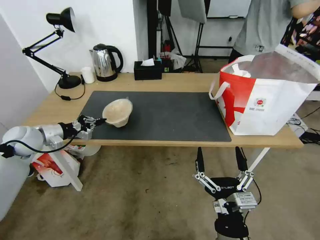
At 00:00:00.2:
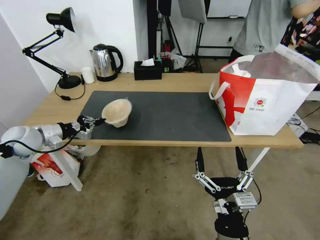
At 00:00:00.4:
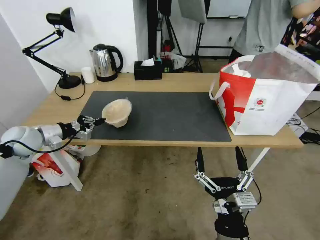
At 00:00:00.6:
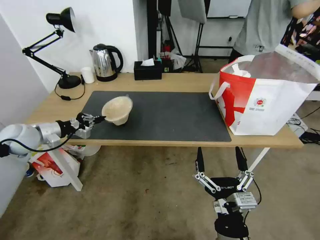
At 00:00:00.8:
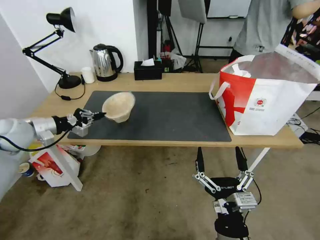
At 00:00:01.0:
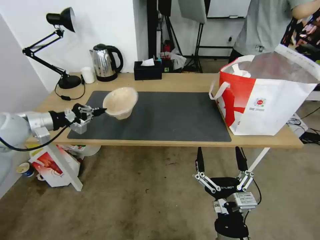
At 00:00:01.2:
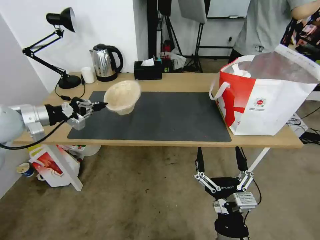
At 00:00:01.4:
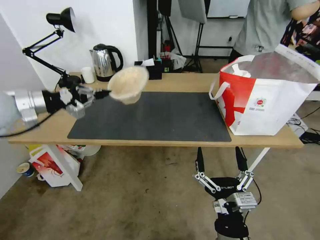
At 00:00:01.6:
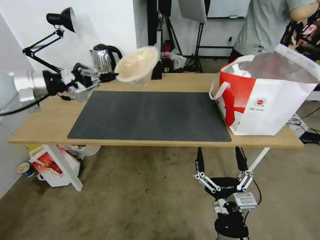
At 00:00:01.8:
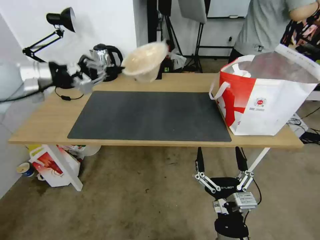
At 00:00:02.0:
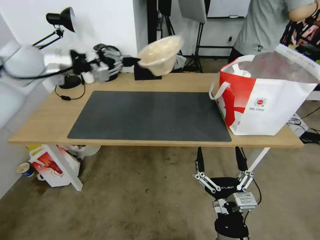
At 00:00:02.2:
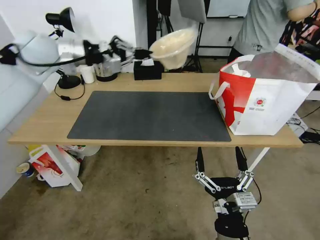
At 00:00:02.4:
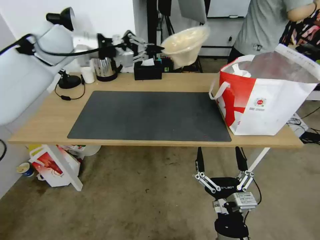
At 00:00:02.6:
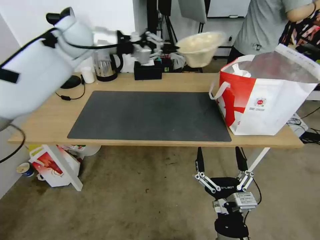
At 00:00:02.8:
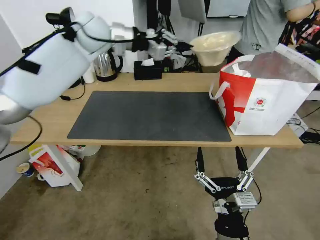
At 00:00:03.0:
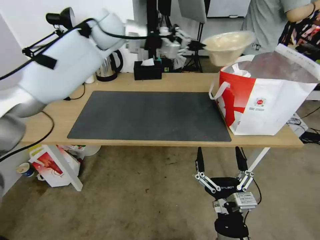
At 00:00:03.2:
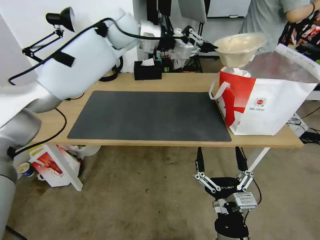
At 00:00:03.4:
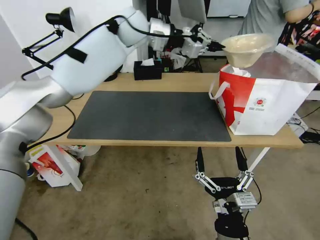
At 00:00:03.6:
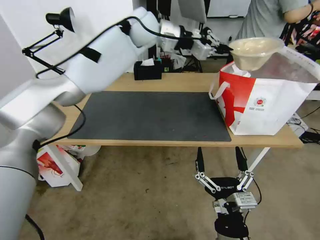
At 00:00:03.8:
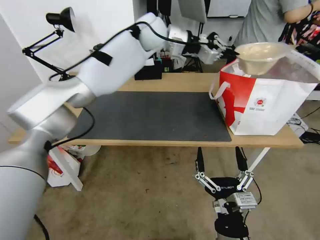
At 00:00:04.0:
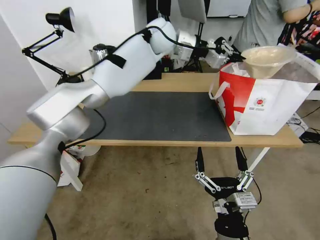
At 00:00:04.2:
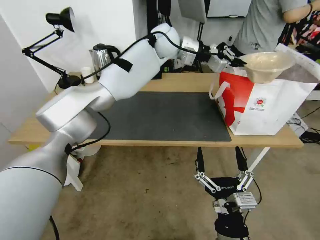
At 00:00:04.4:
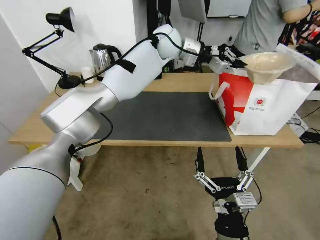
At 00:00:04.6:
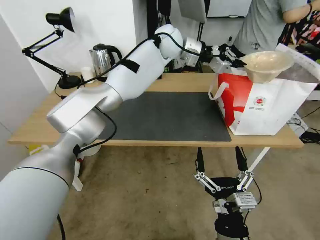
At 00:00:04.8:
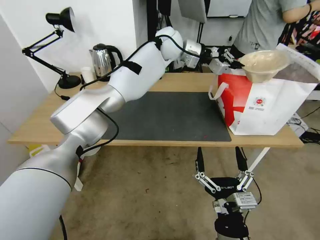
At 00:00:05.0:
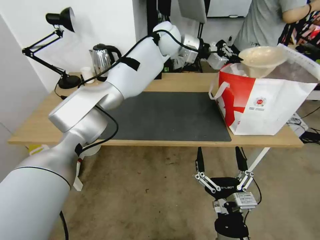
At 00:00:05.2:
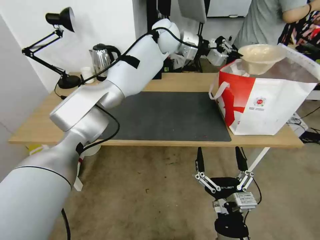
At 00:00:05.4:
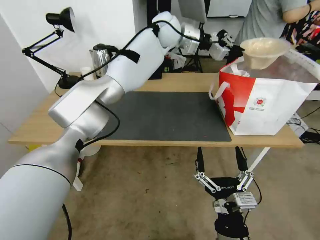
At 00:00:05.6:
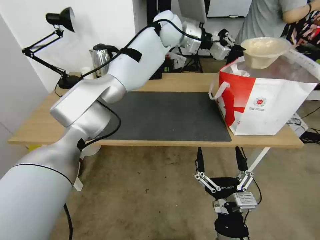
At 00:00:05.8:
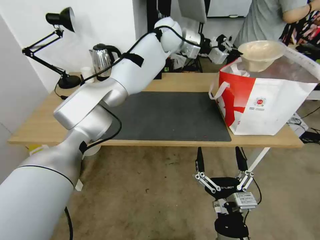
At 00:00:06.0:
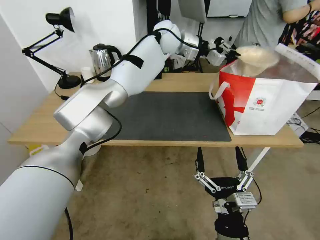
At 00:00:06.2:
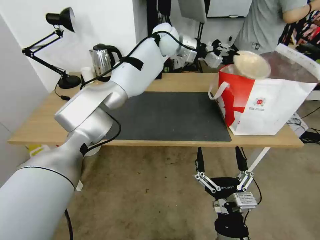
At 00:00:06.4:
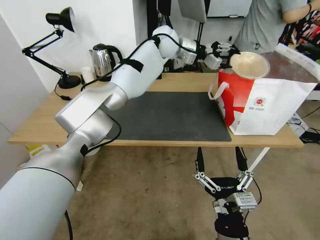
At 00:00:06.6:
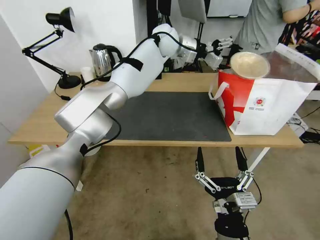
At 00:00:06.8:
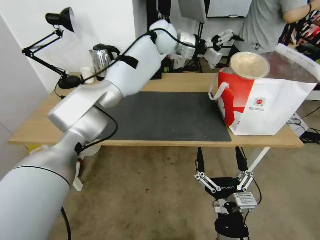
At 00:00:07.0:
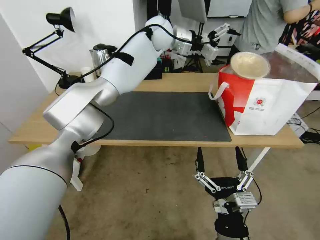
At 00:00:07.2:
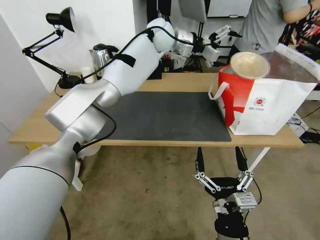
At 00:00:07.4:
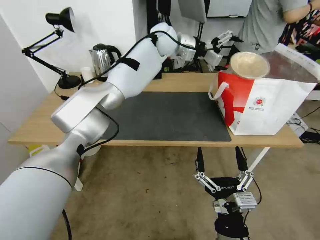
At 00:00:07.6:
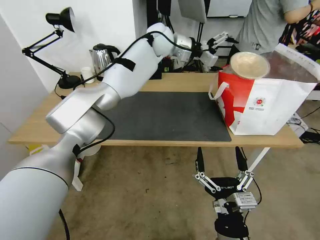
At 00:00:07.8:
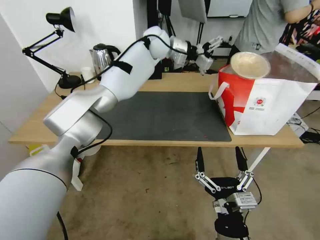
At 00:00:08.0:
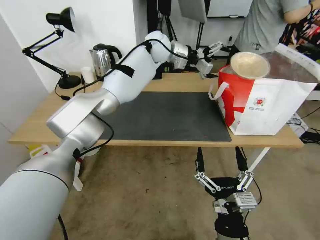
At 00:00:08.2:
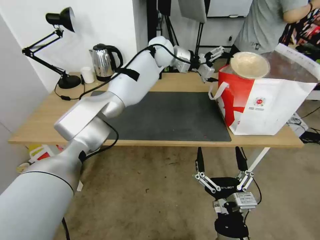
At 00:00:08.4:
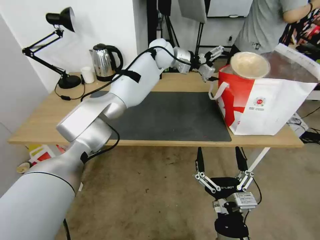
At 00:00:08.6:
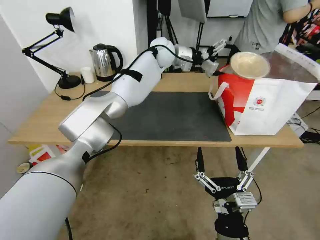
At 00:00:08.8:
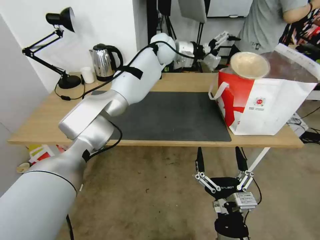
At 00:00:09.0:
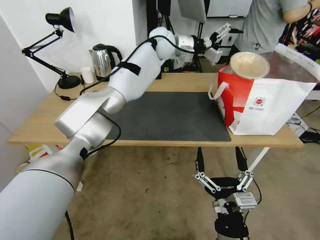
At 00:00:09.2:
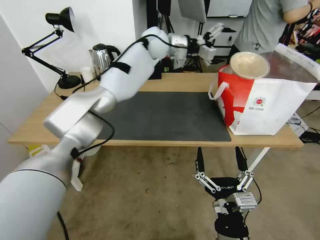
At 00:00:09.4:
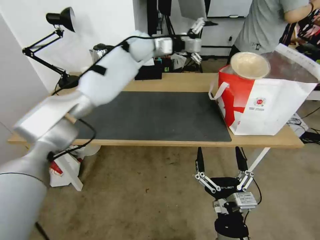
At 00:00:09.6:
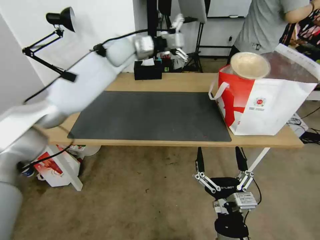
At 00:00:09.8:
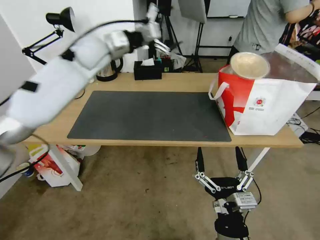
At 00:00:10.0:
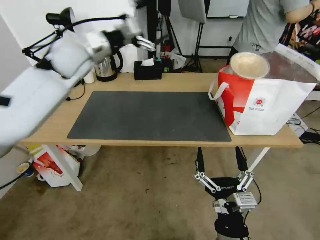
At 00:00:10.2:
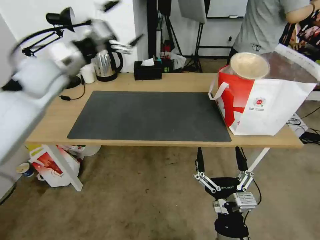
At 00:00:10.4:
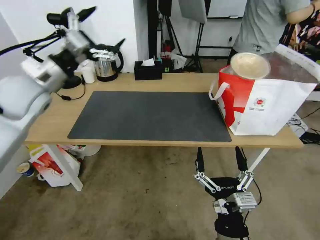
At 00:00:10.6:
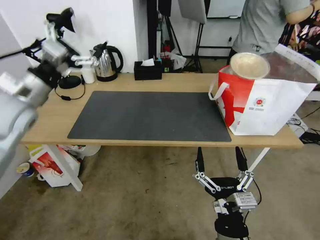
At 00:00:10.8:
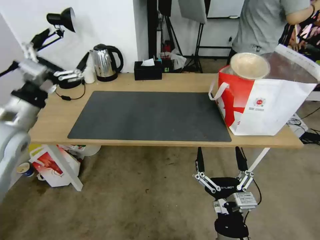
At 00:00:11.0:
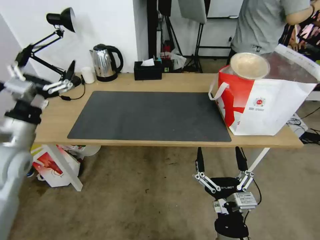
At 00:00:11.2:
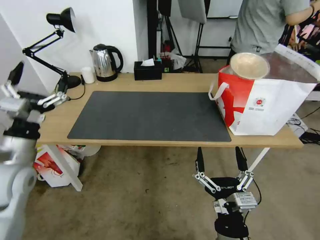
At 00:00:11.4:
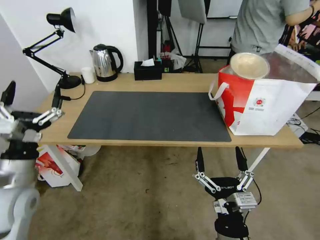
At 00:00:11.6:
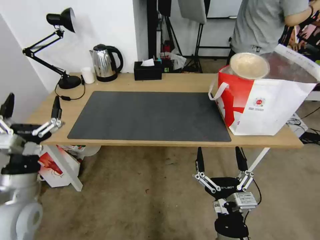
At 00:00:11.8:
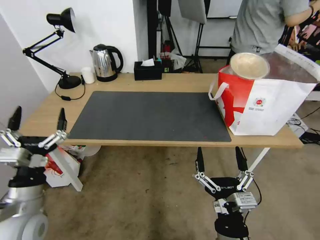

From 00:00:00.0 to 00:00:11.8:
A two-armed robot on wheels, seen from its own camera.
Task of the whole recording: Pick up the trash from the table and place it into the takeout bag.
From 00:00:00.0 to 00:00:01.4: The left gripper heads upward, covering approximately 15 cm.
From 00:00:01.4 to 00:00:03.0: The left gripper shifts about 35 cm to the right, forward and upward.
From 00:00:03.0 to 00:00:04.4: The left gripper travels to the right by roughly 15 cm.
From 00:00:04.4 to 00:00:06.0: There are only small adjustments of the grippers.
From 00:00:06.0 to 00:00:07.4: The left gripper opens up.
From 00:00:07.4 to 00:00:08.8: There are only small adjustments of the grippers.
From 00:00:08.8 to 00:00:10.4: The left gripper moves to the left and backward, roughly 40 cm.
From 00:00:10.4 to 00:00:11.8: The left gripper is displaced backward and downward by approximately 30 cm.

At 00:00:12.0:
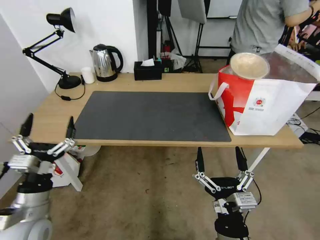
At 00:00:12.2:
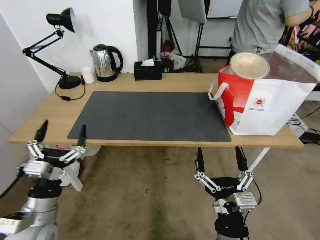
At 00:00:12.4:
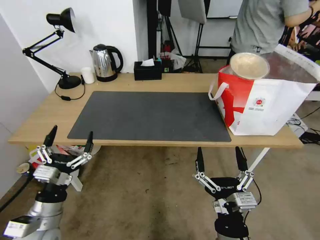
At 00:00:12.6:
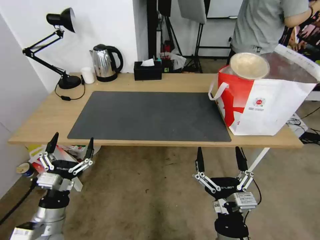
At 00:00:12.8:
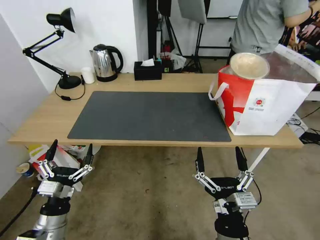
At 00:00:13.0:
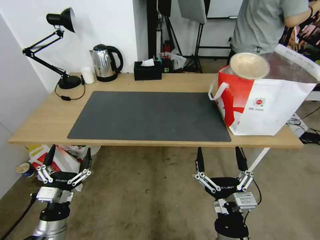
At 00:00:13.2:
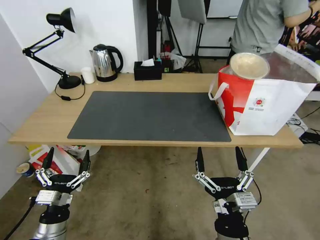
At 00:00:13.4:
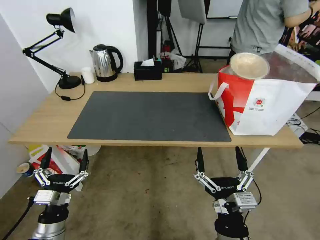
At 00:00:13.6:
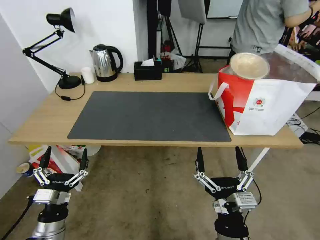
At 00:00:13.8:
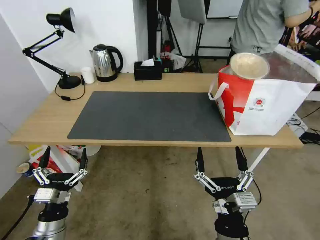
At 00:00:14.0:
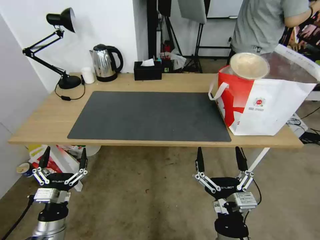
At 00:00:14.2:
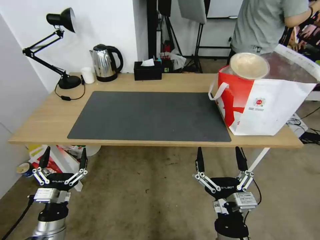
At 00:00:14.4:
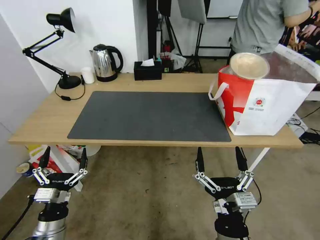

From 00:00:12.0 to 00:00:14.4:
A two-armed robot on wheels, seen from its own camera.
Task of the whole recording: Pick up the trash from the table and place it into the takeout bag.
From 00:00:12.0 to 00:00:13.2: The left gripper shifts roughly 10 cm downward.
From 00:00:13.2 to 00:00:14.4: Both grippers stay about where they are.
